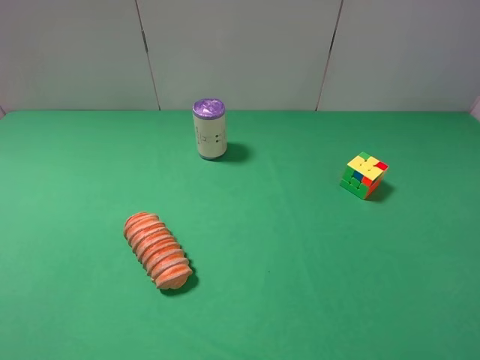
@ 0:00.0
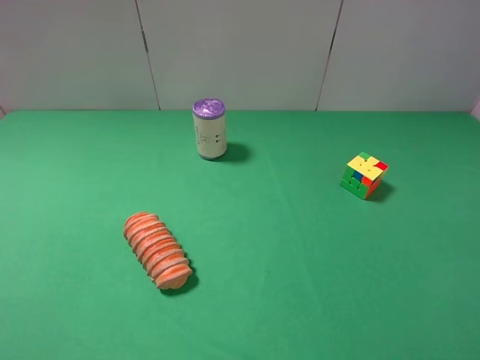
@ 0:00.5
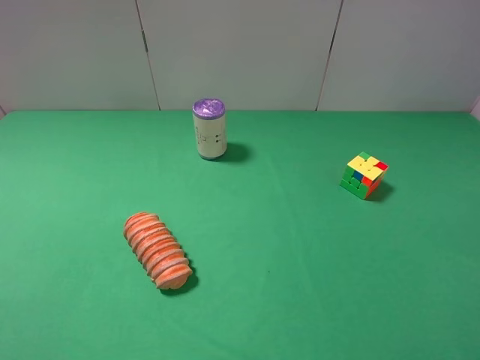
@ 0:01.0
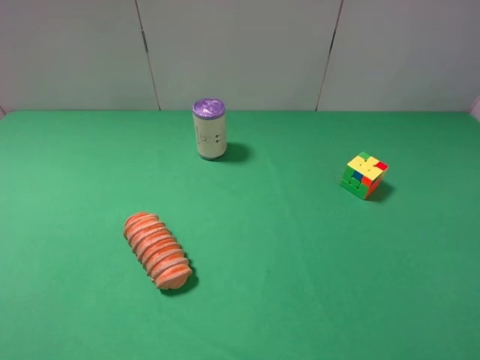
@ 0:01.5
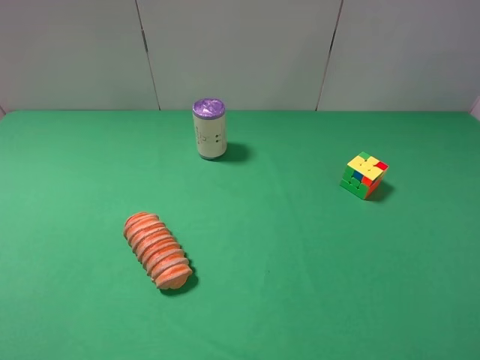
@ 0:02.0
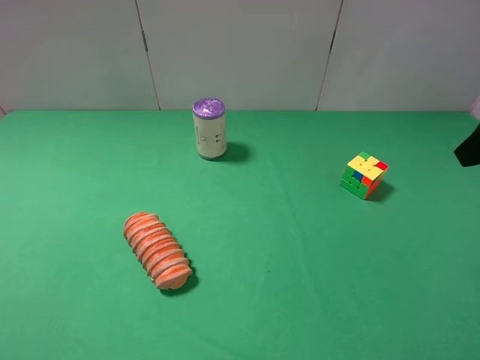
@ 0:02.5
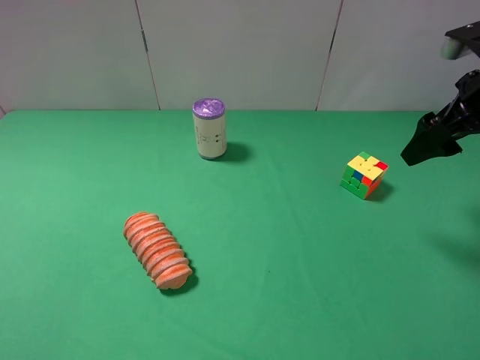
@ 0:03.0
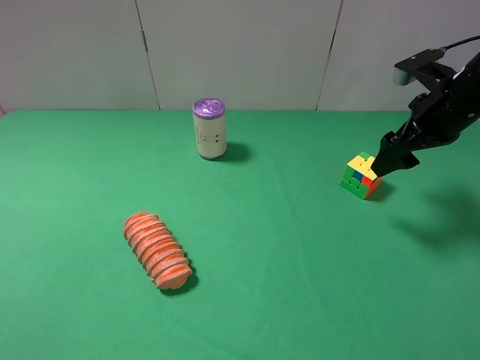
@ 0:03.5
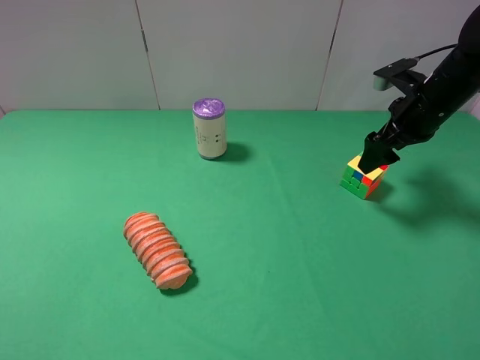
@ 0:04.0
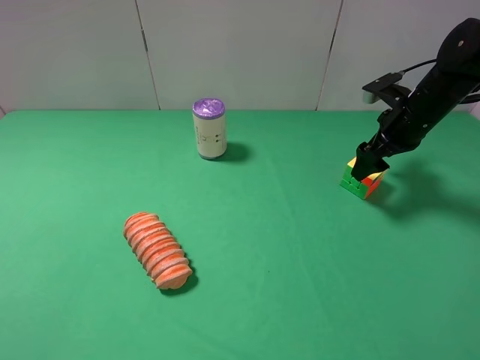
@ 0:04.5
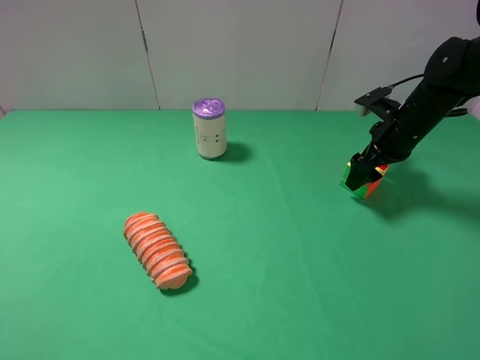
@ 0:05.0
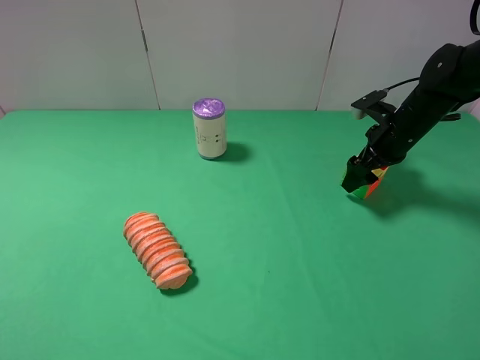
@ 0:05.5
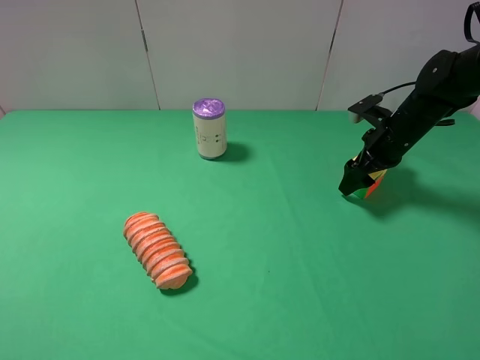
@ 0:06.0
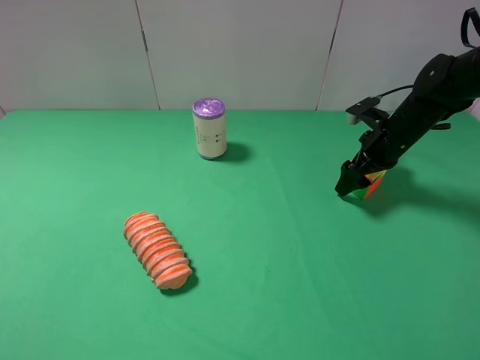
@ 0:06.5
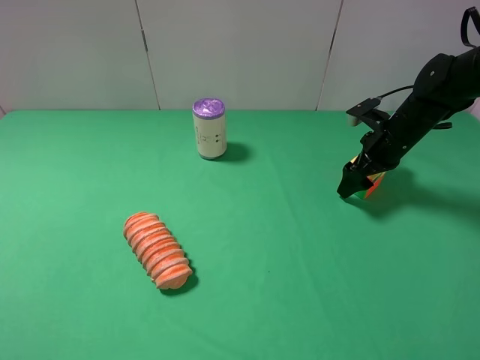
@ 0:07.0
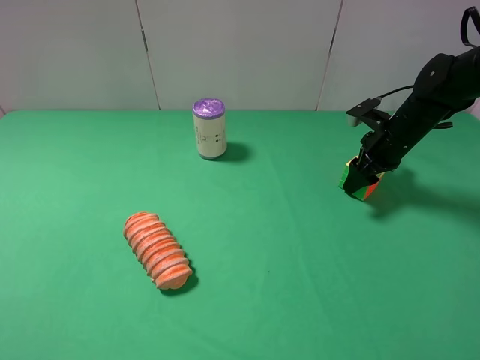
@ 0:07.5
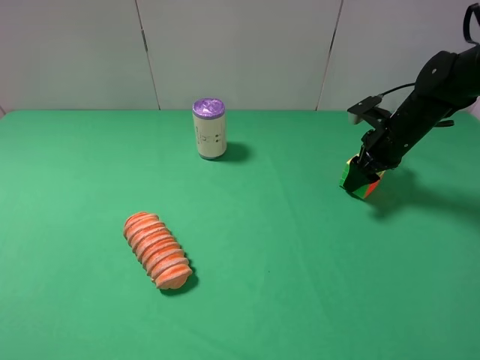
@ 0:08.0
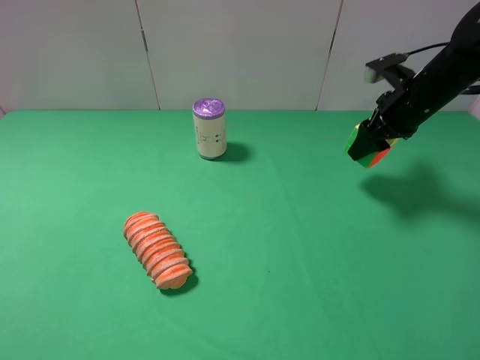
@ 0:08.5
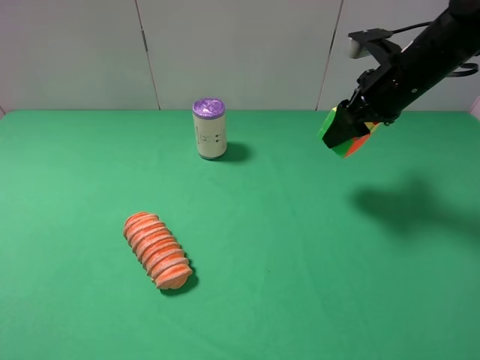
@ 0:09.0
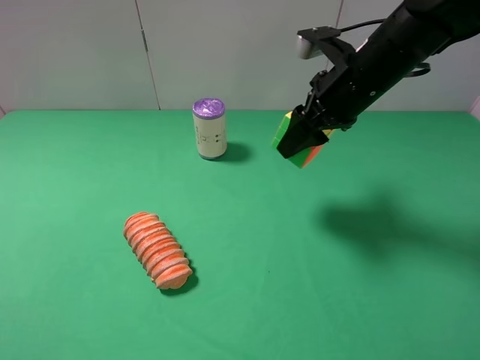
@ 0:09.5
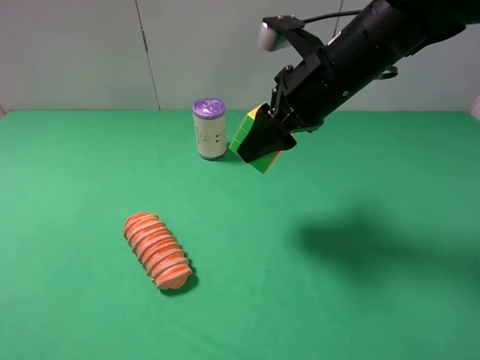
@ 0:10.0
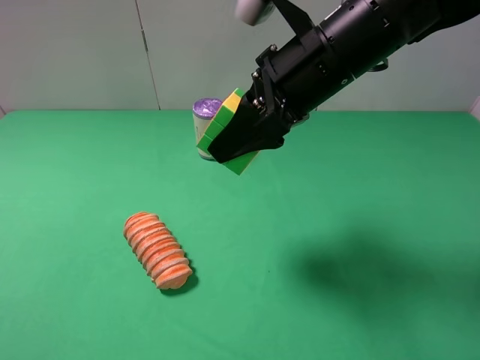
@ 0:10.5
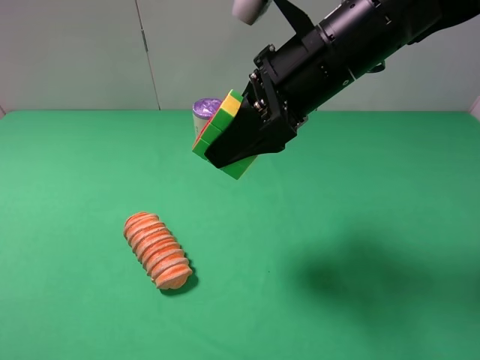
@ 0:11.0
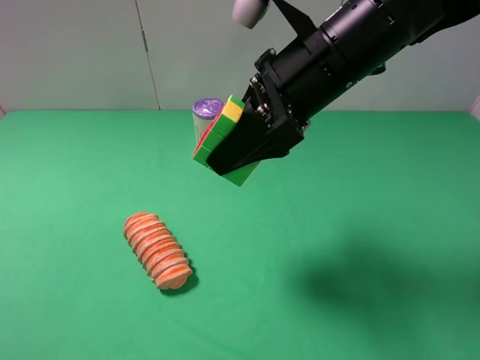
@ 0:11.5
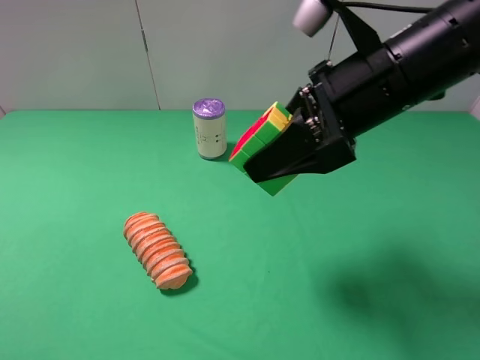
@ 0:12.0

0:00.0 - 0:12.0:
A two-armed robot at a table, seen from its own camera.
Task of the whole recording: use the right gripper to pick up the item and transfer it from the right gripper to the left gripper.
Step, 0:00.0 - 0:06.5: Use the right gripper to grab the Rubik's Cube on the right side of the table.
0:02.0 - 0:04.0: The right gripper is displaced forward and downward by some 30 cm.
0:04.0 - 0:06.0: The right gripper goes some 5 cm downward.
0:06.0 - 0:08.0: The right gripper closes.
0:08.0 - 0:10.0: The right gripper heads to the left, upward and backward, covering about 25 cm.
0:10.0 - 0:12.0: The right gripper goes about 5 cm backward.

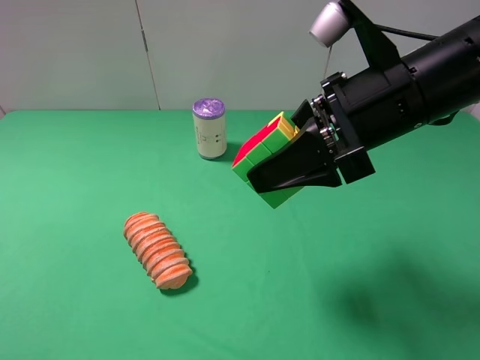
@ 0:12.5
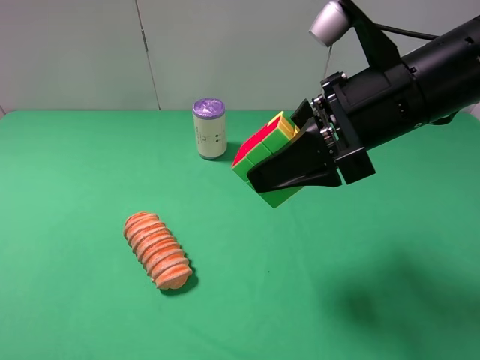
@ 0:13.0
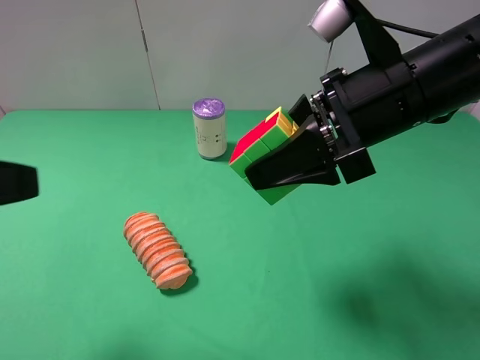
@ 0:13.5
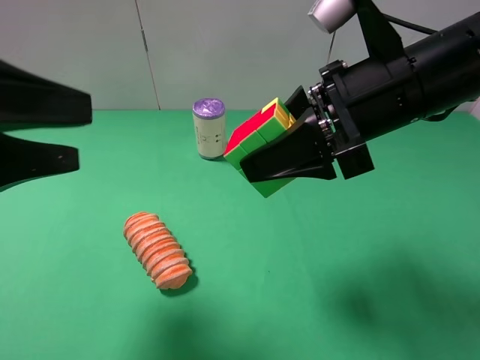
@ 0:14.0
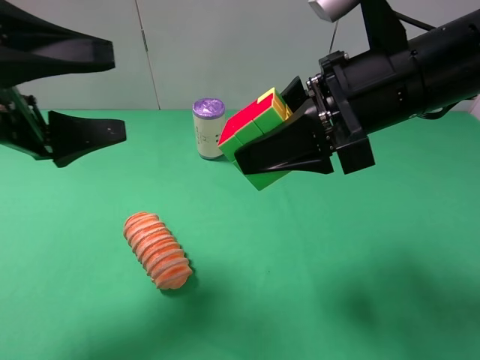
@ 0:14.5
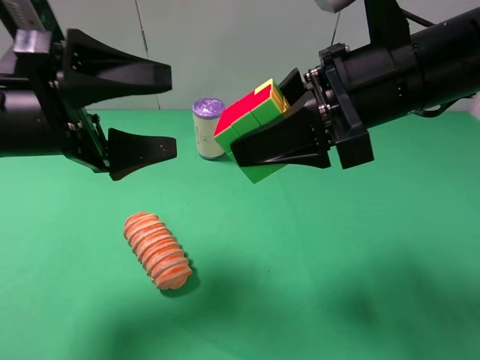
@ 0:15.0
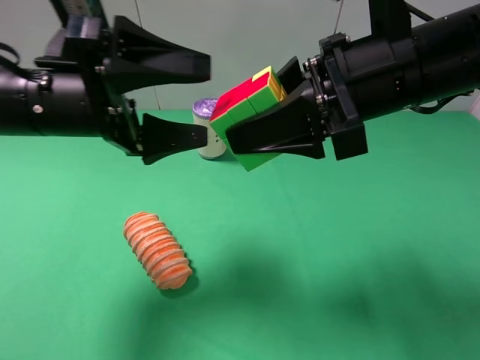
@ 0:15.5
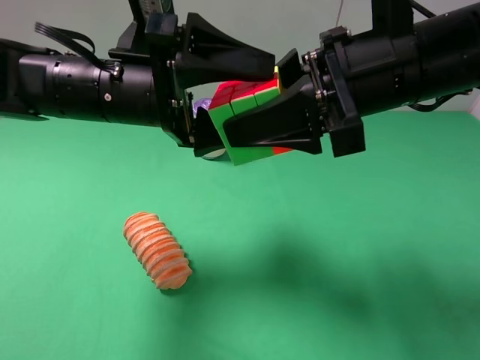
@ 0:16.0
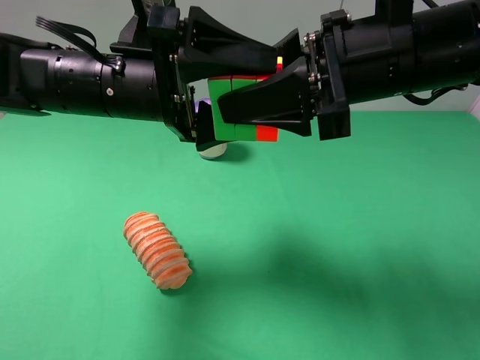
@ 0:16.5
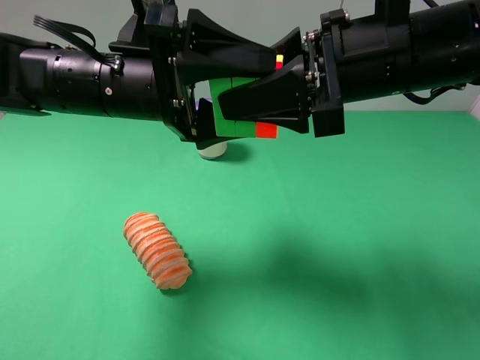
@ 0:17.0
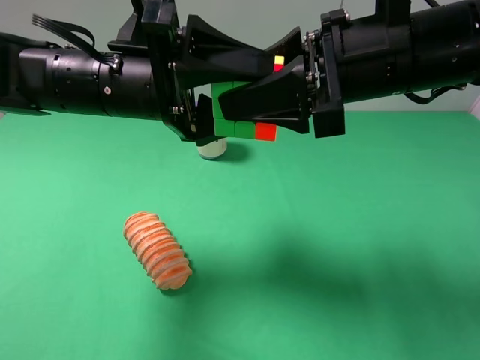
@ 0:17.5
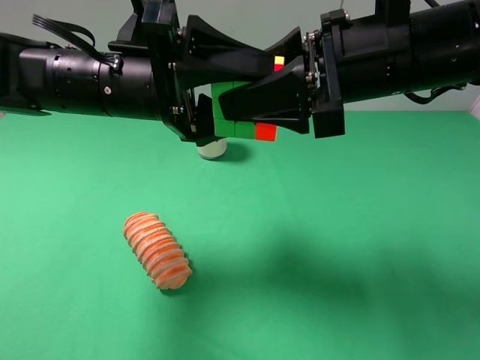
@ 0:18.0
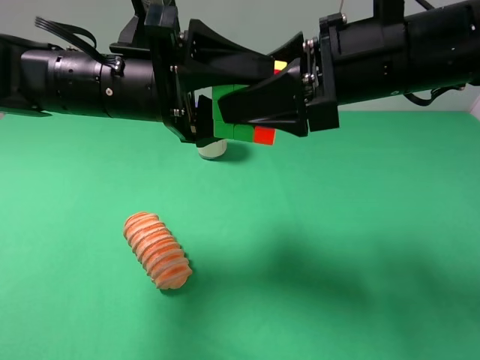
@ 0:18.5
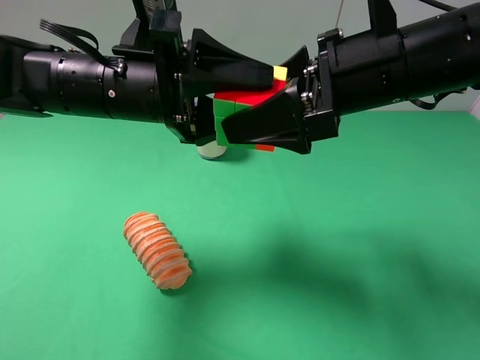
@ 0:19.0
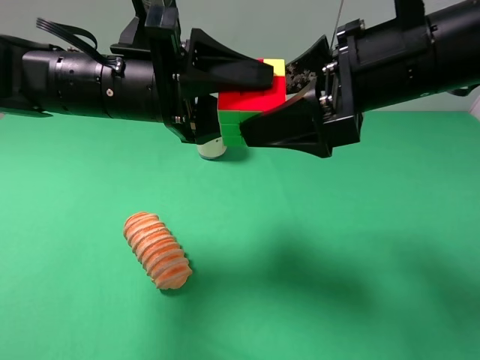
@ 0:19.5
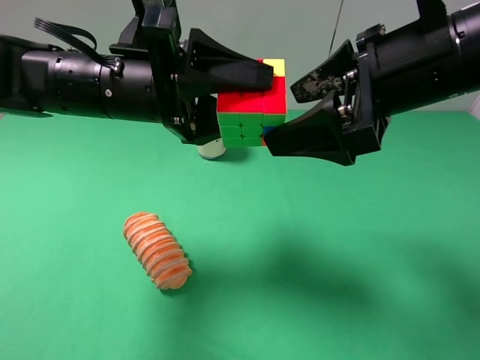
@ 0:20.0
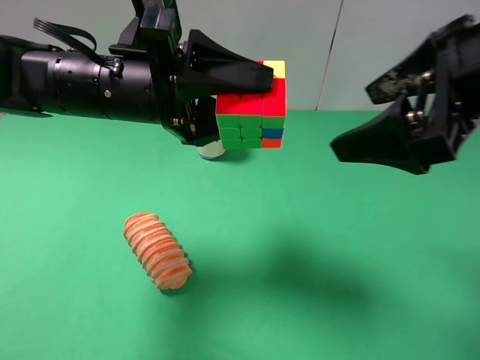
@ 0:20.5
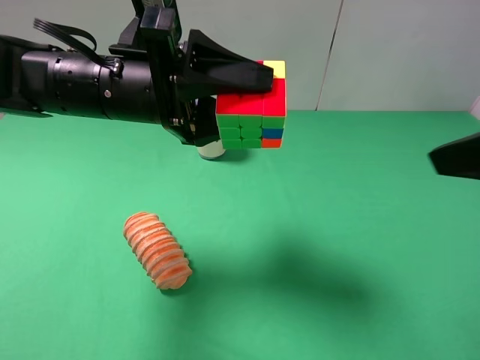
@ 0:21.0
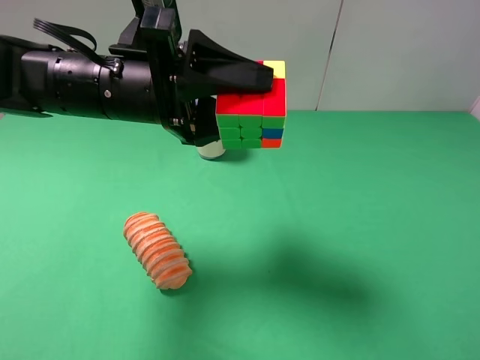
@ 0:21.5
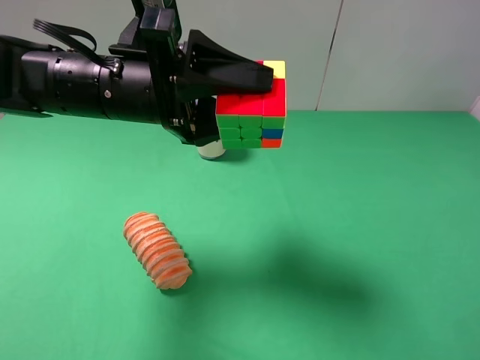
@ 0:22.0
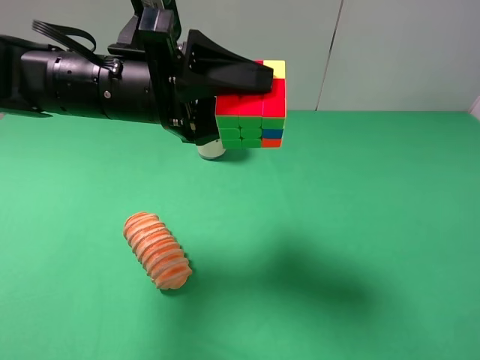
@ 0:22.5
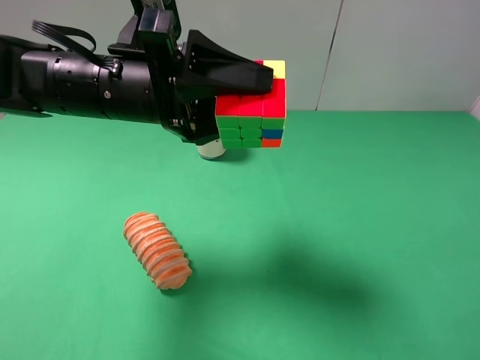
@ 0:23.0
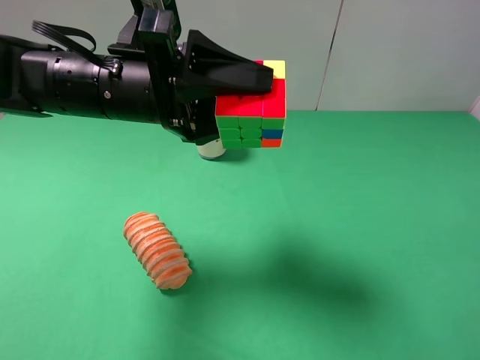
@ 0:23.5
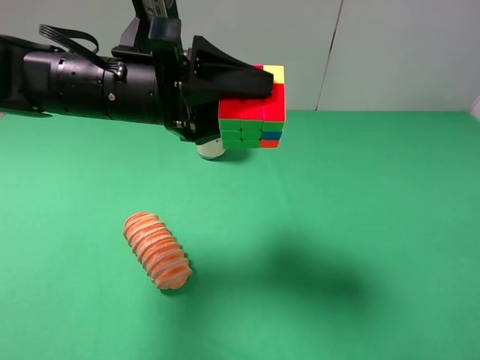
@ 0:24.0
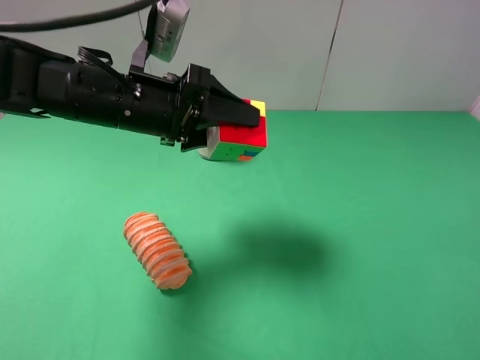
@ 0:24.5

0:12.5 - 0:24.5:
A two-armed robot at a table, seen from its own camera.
Task of the whole recording: use the right gripper to pick up the item and transfer it from the right gripper to the left gripper.
Step, 0:12.5 - 0:19.5: Pass the Rubik's Cube to the left gripper.
0:12.5 - 0:14.5: The left gripper shifts some 20 cm forward.
0:14.5 - 0:16.5: The left gripper moves to the right and forward, about 15 cm.
0:16.5 - 0:18.5: The right gripper opens up. Meanwhile the left gripper closes up.
0:18.5 - 0:20.5: The right gripper moves to the right and backward, about 10 cm.
0:20.5 - 0:22.5: The right gripper heads backward and to the right, covering some 20 cm.

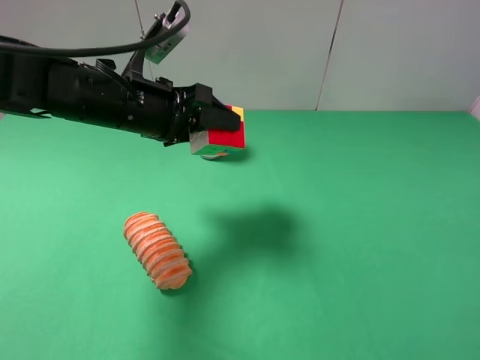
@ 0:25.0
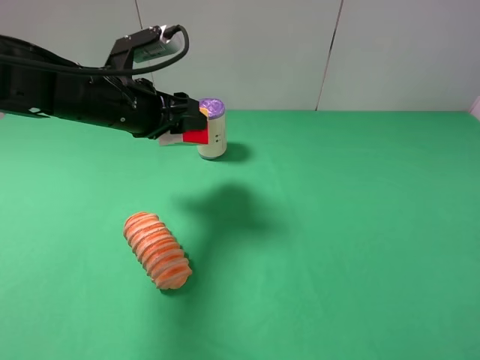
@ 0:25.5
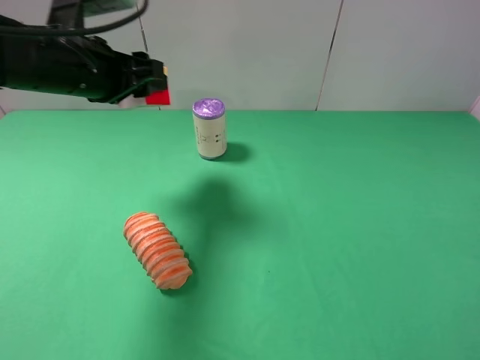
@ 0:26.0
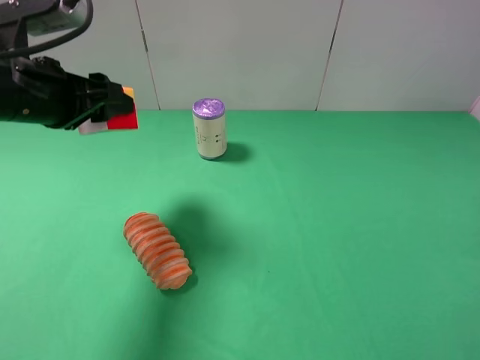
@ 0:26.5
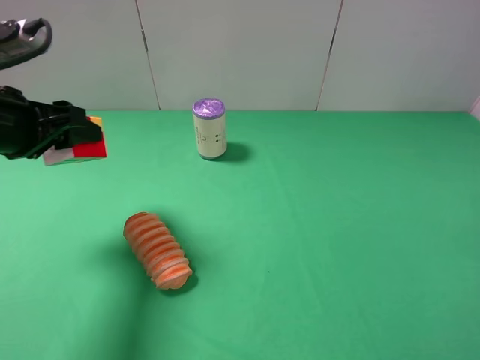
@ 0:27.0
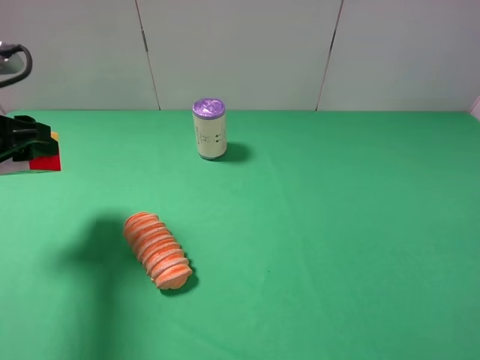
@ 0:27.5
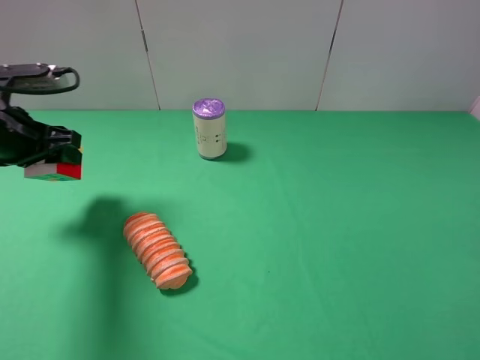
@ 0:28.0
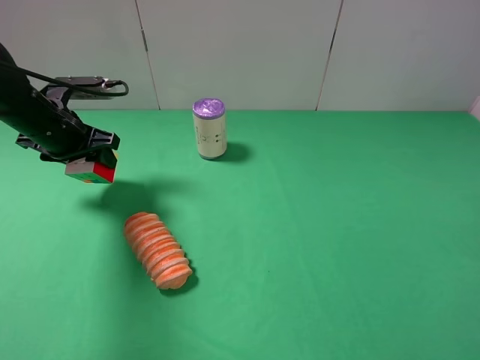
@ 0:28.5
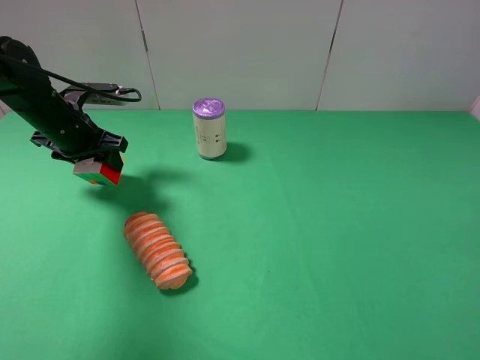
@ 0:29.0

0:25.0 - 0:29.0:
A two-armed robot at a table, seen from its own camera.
Task of the whole recording: use the right gripper to pick up the item and transfer it from the right gripper to the left gripper.
0:25.0 - 0:27.0: The left gripper travels to the left and backward by roughly 15 cm.
0:27.0 - 0:29.0: The left gripper travels forward and downward by approximately 15 cm.
